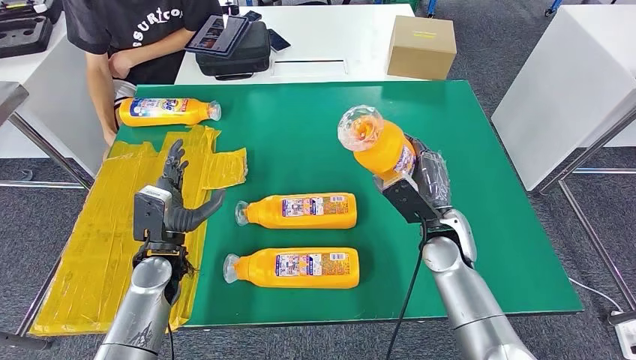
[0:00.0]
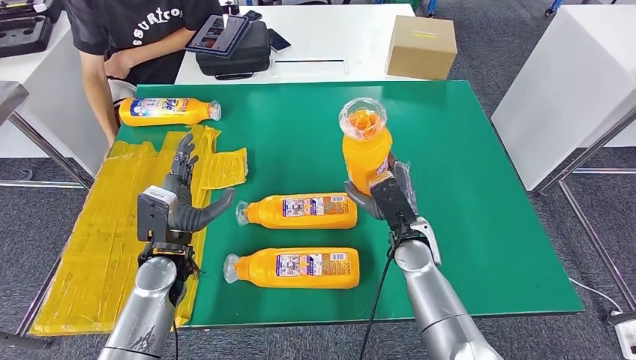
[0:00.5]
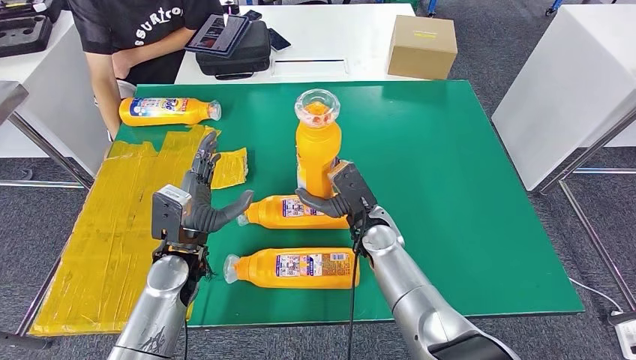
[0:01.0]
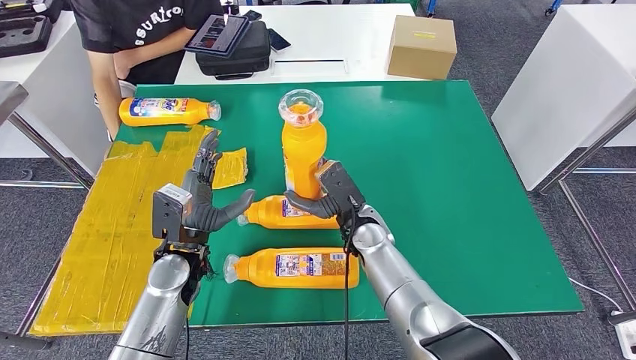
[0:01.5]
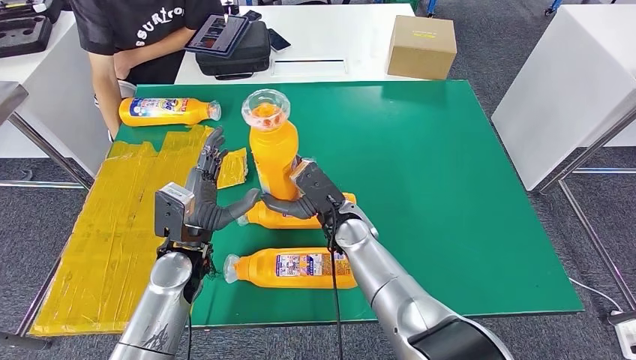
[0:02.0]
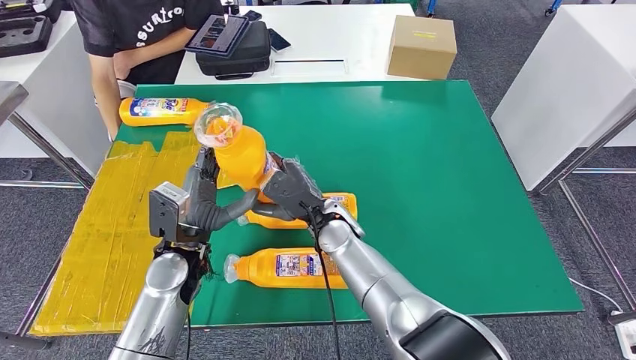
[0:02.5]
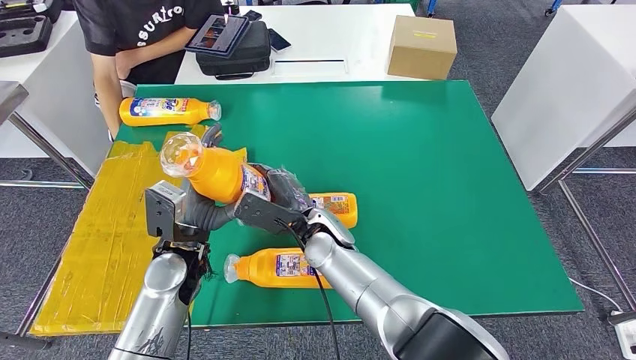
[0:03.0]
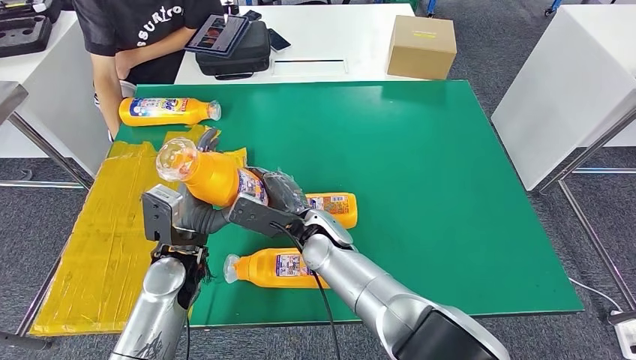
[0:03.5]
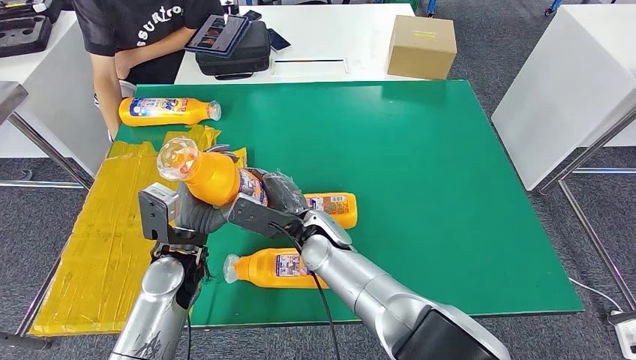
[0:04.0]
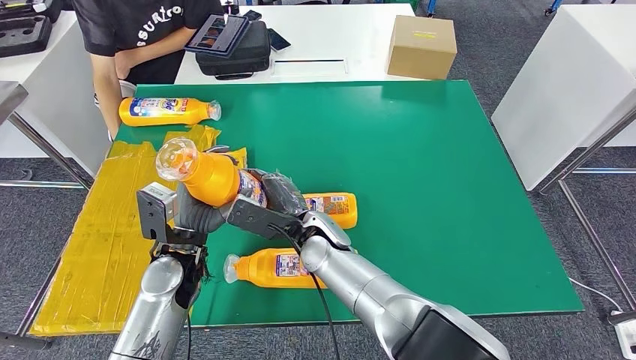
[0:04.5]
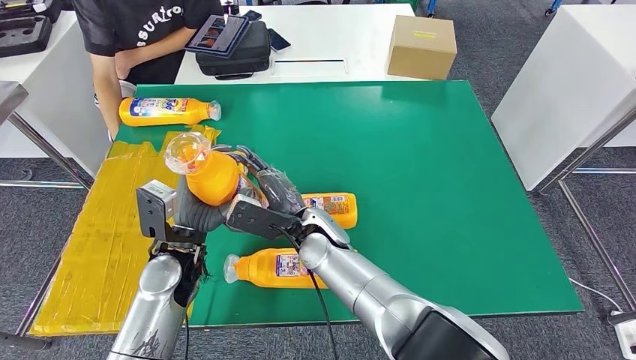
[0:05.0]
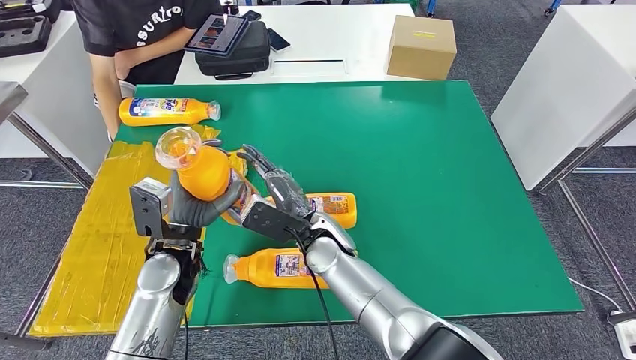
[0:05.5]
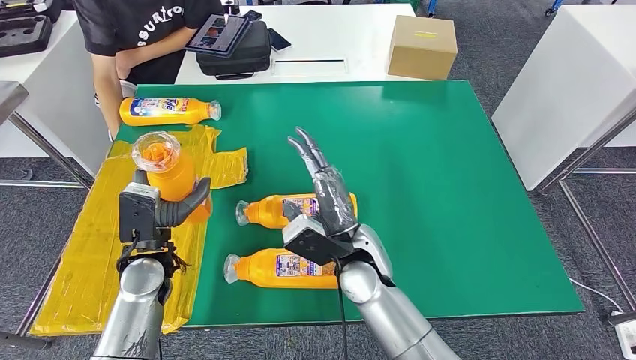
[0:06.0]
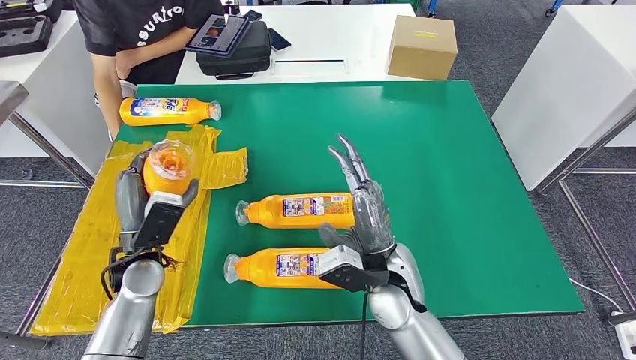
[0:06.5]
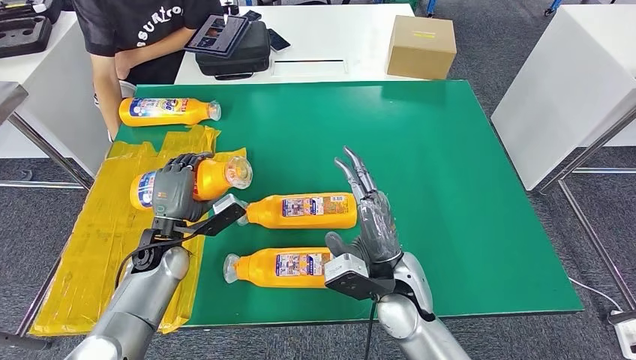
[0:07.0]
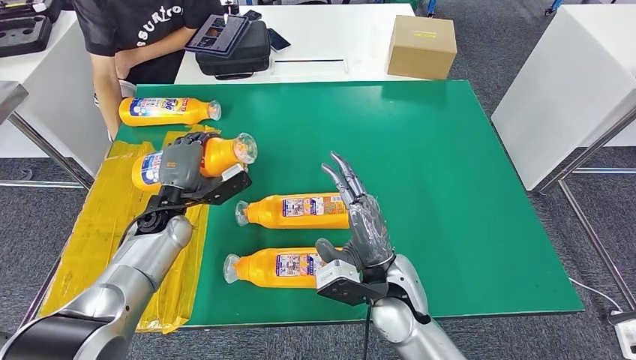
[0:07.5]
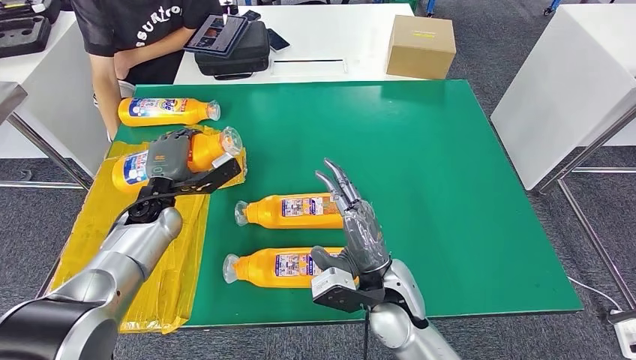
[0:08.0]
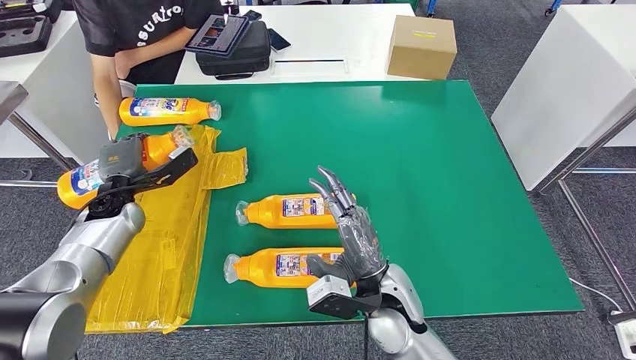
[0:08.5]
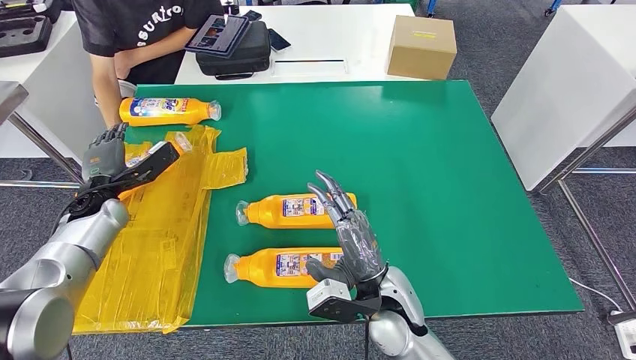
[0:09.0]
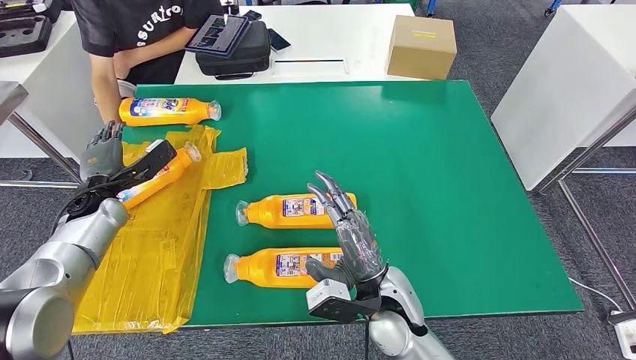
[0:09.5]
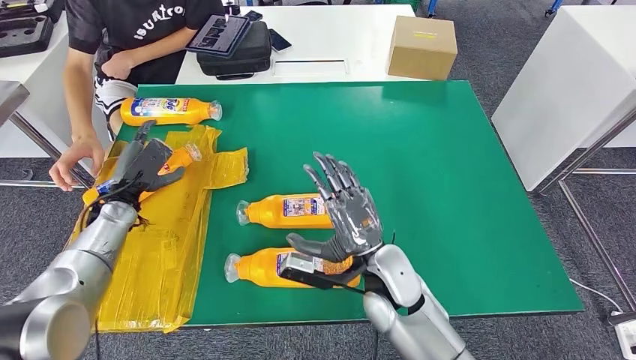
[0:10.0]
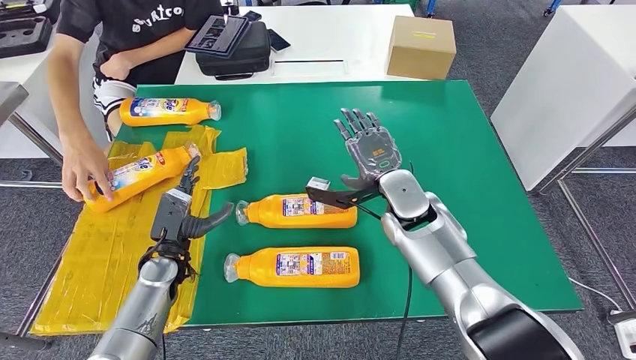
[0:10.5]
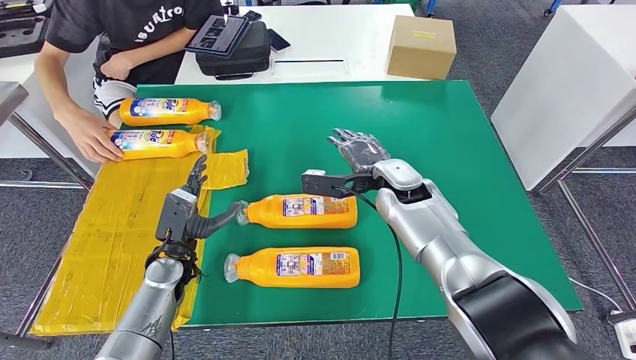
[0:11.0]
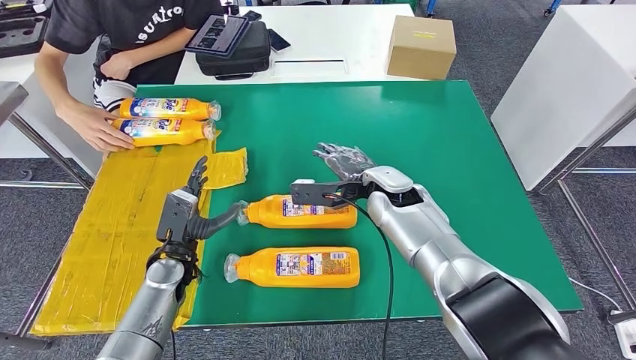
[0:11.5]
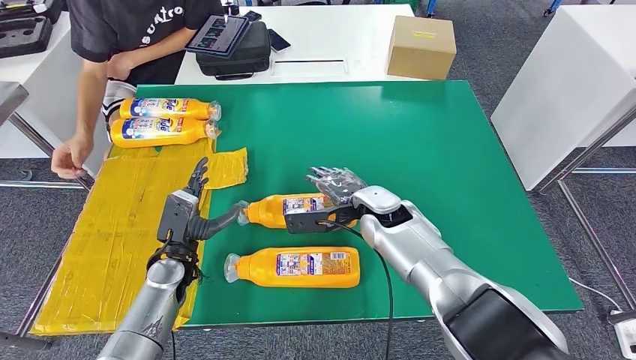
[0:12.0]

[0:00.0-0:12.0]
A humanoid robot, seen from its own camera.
Step, 0:00.0 to 0:02.5: Pick up the bottle from the table.
Step, 0:03.0 to 0:09.5: Flip the bottle to face forward.
0:02.0 to 0:04.0: The right hand heads to the left, covering roughly 5 cm.
0:04.0 to 0:06.0: The right hand moves to the right, some 5 cm. The left hand shifts some 5 cm to the left.
0:06.0 to 0:08.0: The right hand travels backward by roughly 5 cm, while the left hand shifts roughly 10 cm forward.

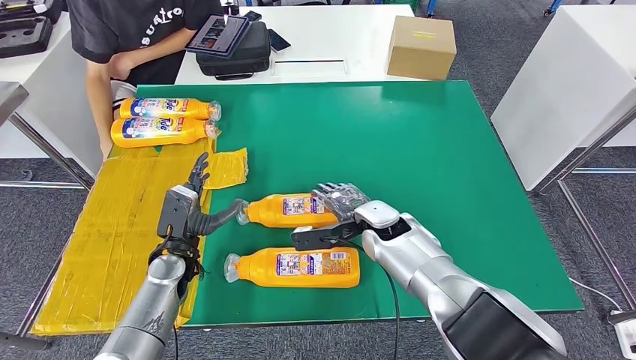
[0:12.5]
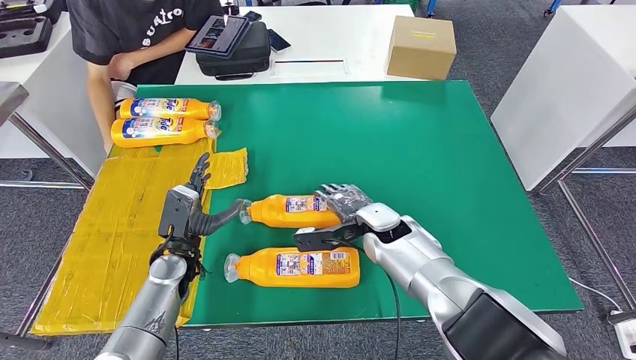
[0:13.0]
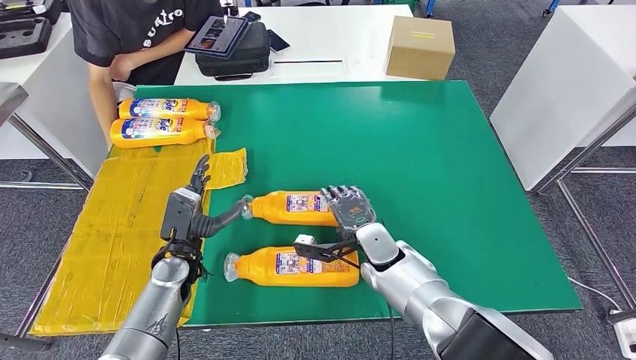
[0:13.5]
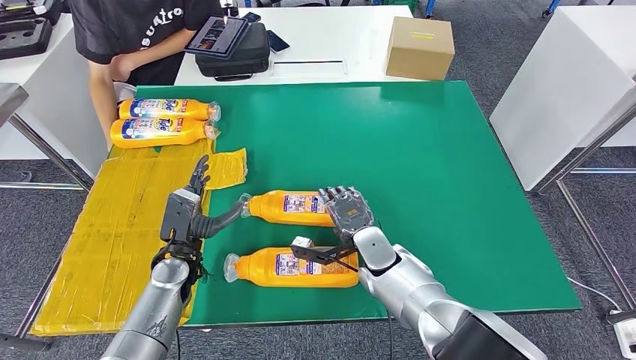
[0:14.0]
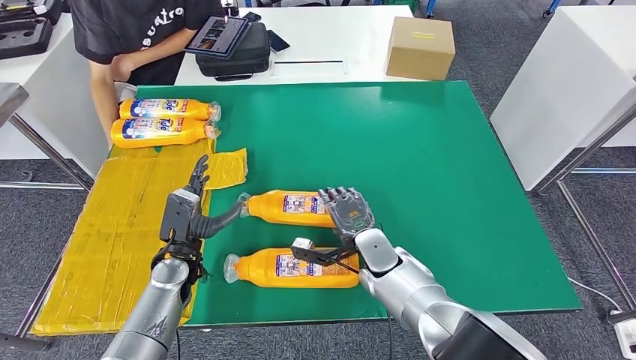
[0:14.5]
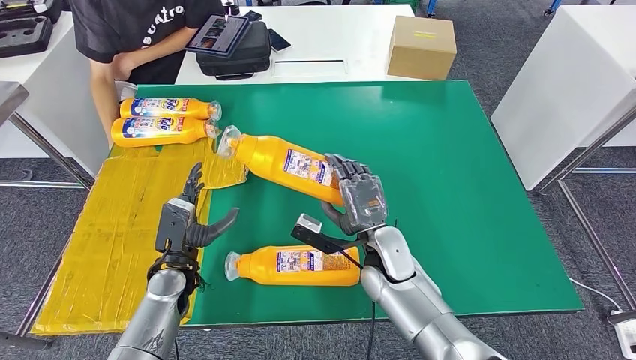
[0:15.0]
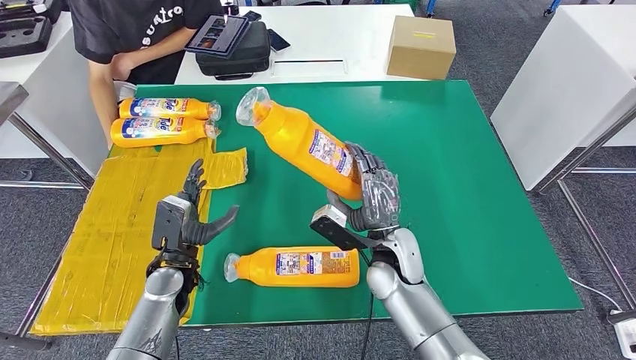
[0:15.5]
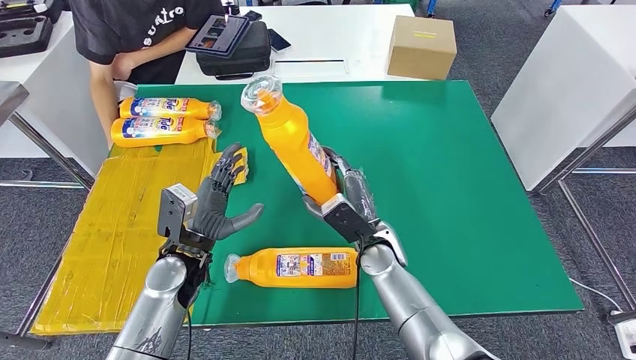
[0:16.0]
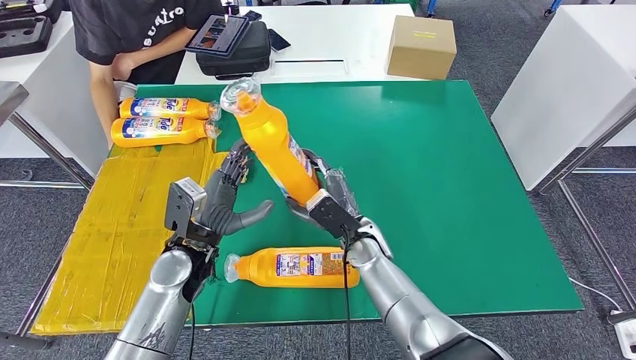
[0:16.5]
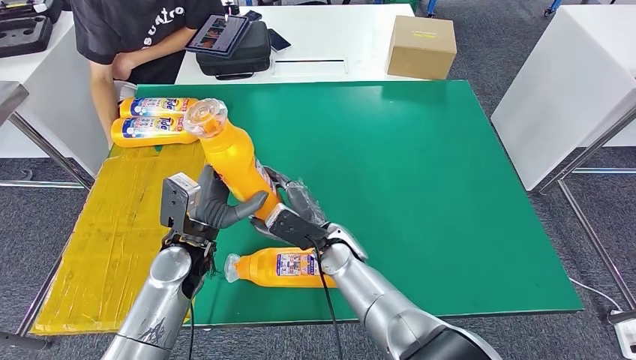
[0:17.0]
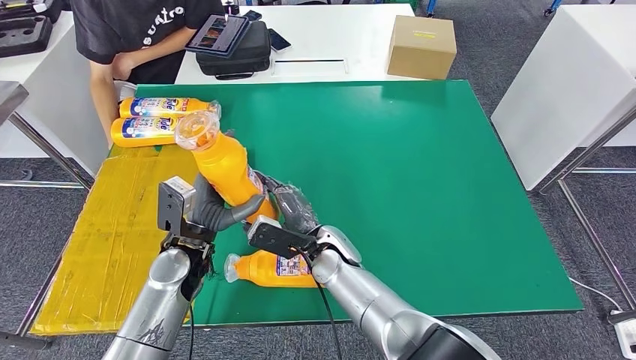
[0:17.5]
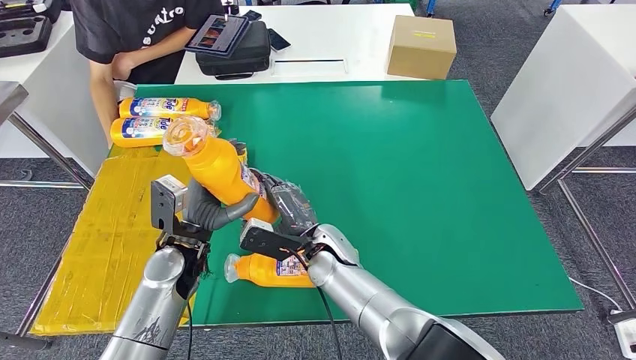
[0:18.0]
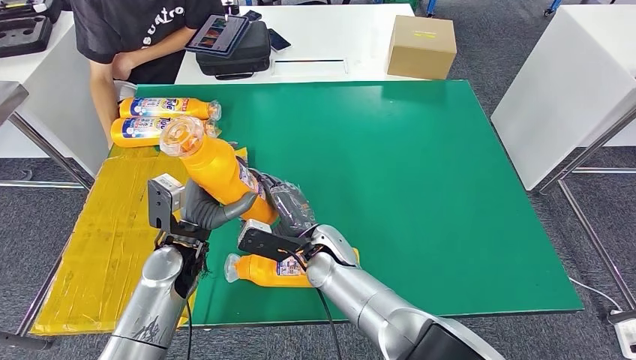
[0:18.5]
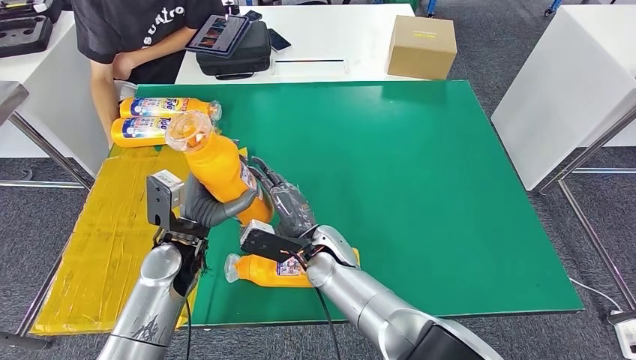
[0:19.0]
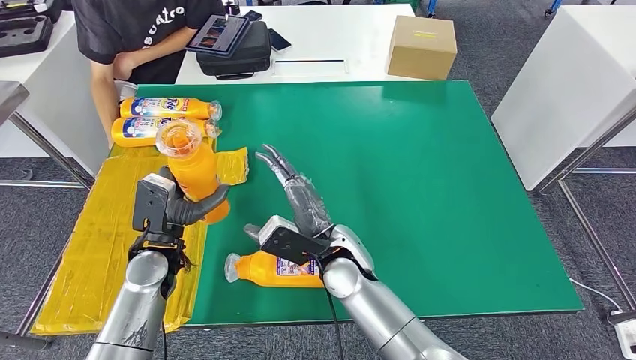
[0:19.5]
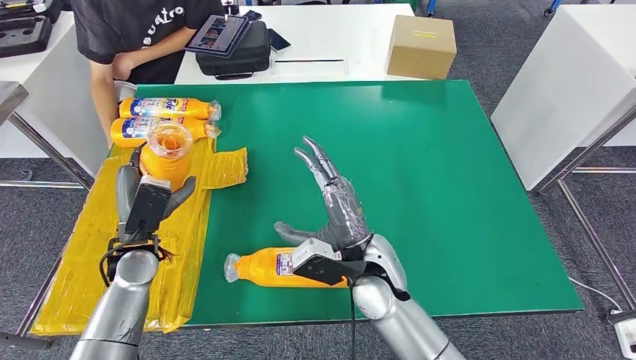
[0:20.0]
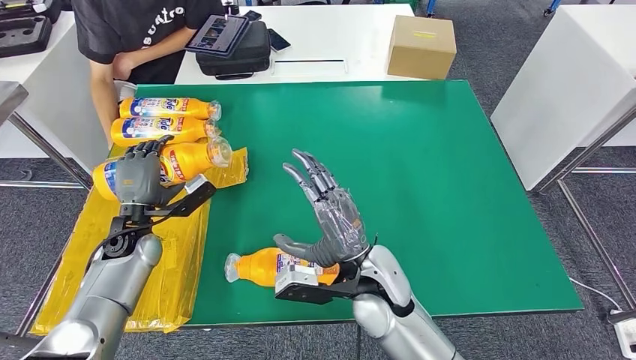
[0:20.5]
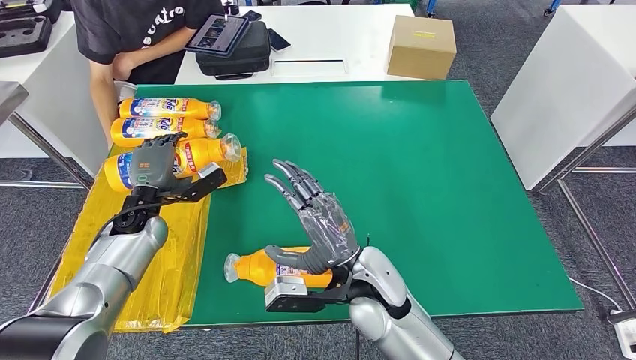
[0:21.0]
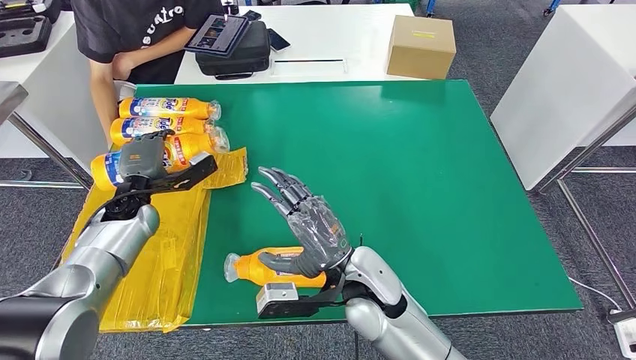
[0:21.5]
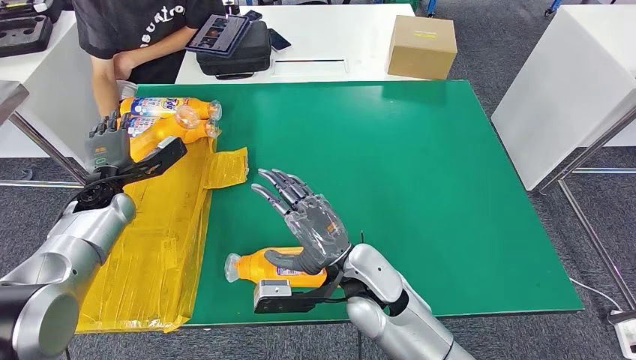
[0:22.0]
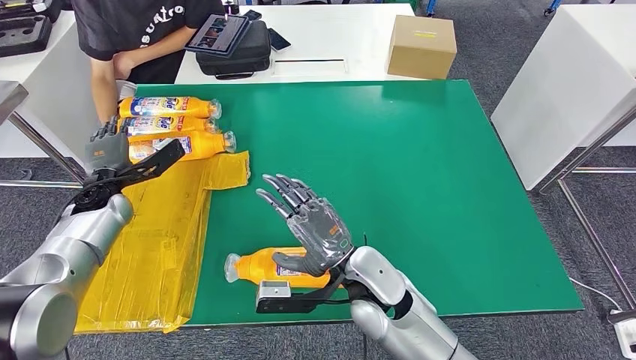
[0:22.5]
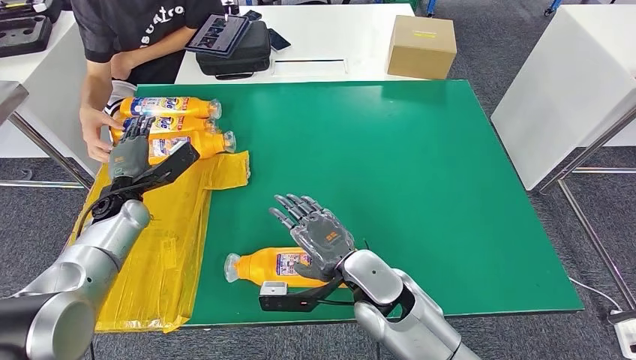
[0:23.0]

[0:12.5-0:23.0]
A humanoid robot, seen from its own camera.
Step, 0:12.5 to 0:18.5: Pick up the bottle from the table.
0:12.5 to 0:14.5: The right hand heads downward, covering about 5 cm.
0:14.5 to 0:16.5: The left hand goes about 5 cm upward.
0:16.5 to 0:19.0: The right hand is displaced to the left by roughly 10 cm.
0:19.0 to 0:21.0: The left hand shifts some 15 cm to the left and forward. Meanwhile the right hand travels backward, to the right and upward by approximately 10 cm.
